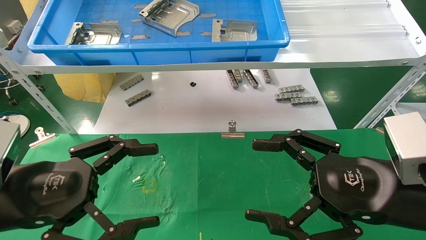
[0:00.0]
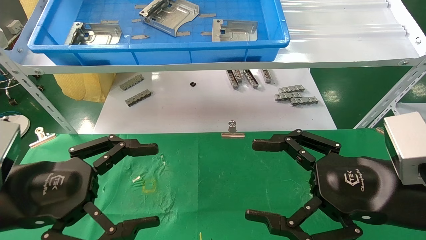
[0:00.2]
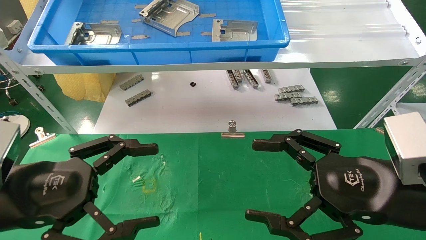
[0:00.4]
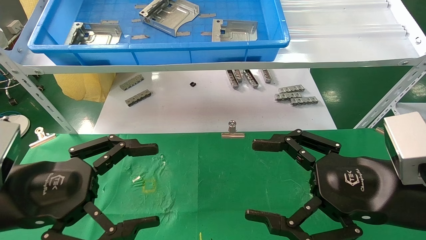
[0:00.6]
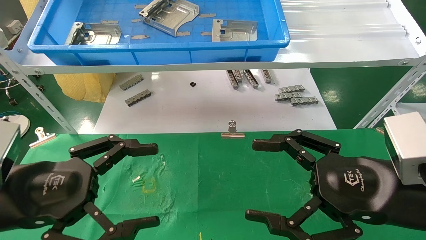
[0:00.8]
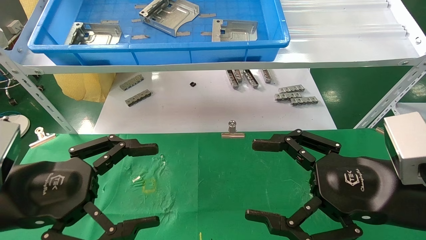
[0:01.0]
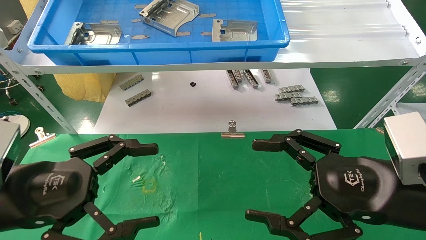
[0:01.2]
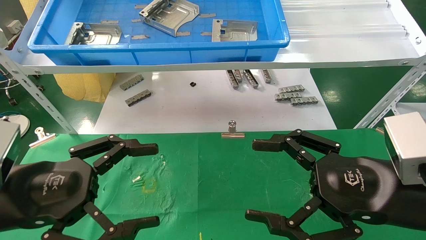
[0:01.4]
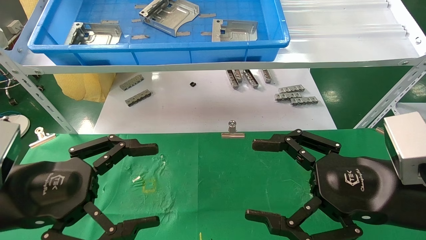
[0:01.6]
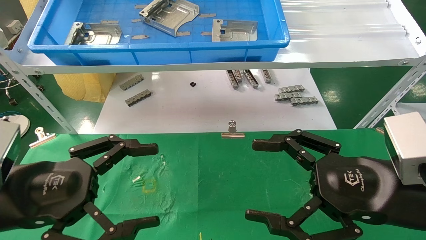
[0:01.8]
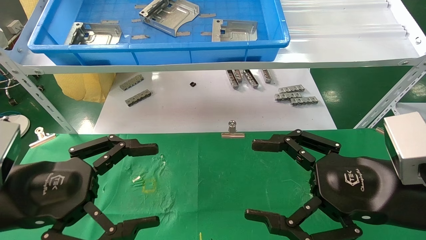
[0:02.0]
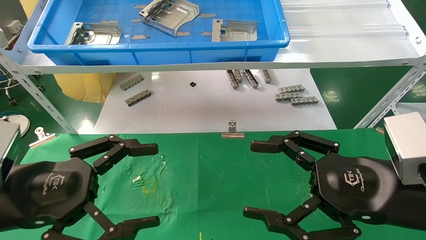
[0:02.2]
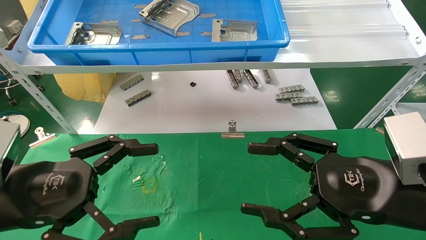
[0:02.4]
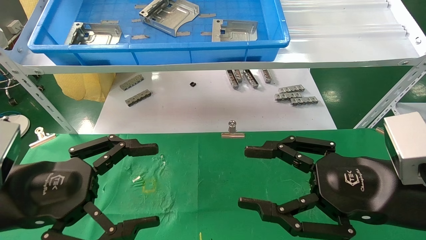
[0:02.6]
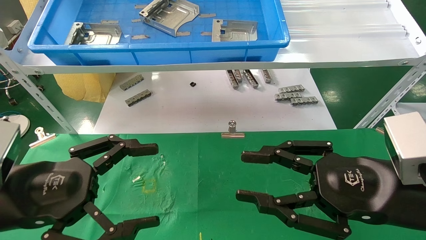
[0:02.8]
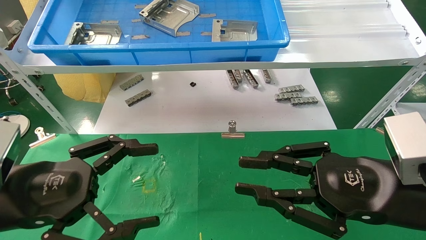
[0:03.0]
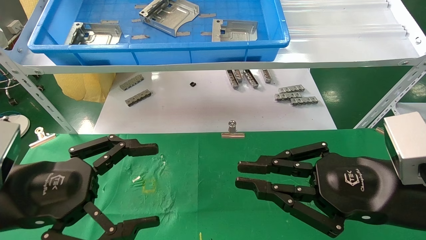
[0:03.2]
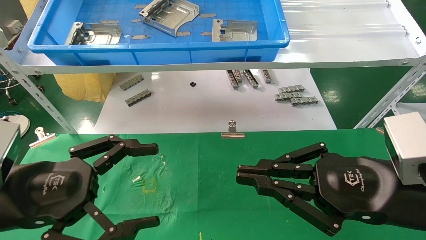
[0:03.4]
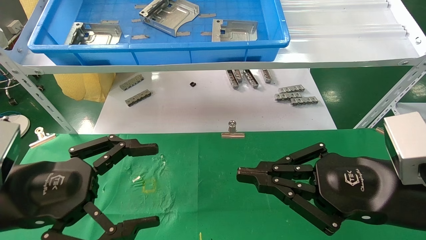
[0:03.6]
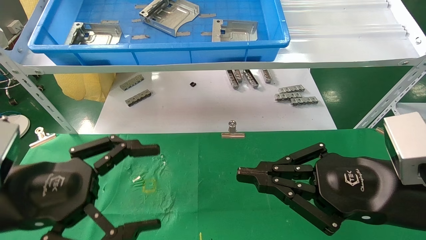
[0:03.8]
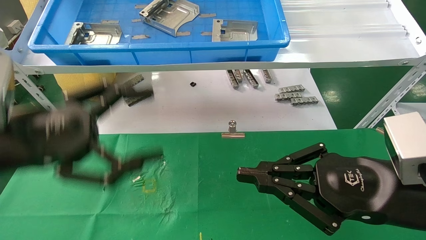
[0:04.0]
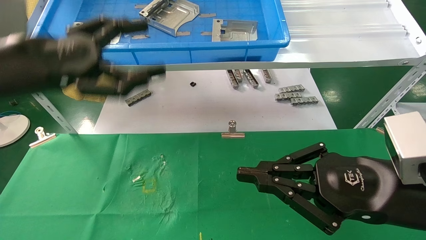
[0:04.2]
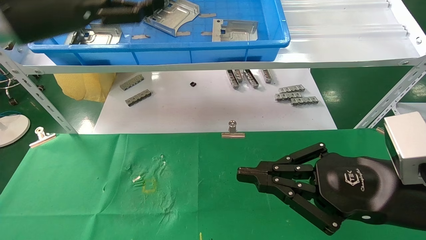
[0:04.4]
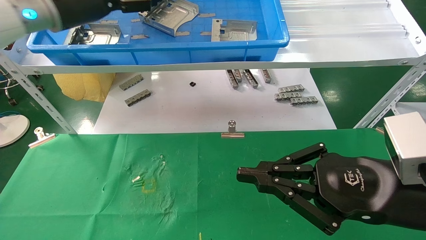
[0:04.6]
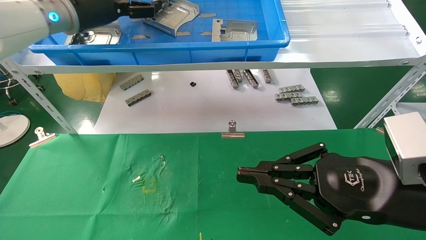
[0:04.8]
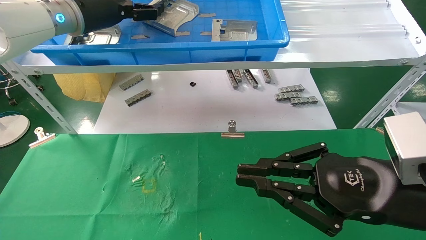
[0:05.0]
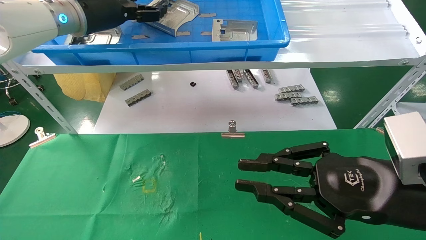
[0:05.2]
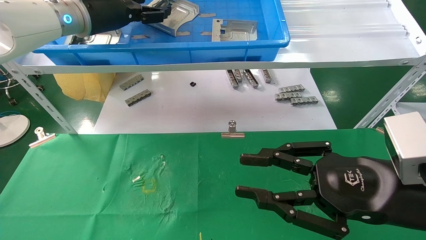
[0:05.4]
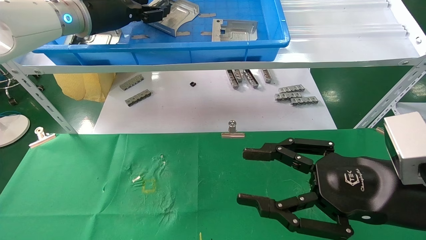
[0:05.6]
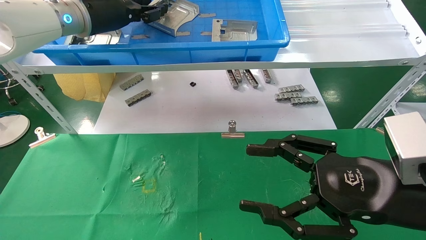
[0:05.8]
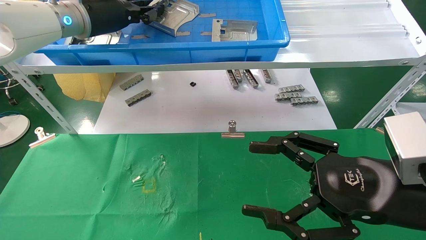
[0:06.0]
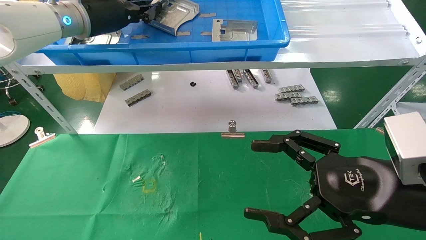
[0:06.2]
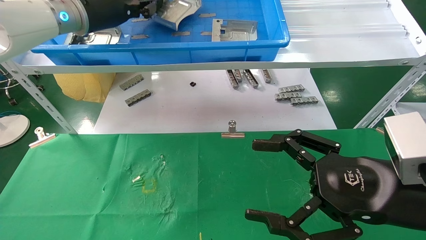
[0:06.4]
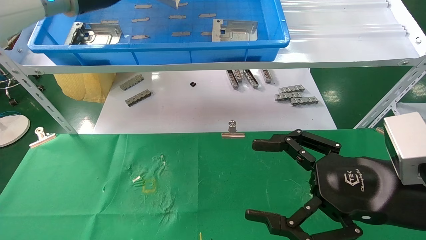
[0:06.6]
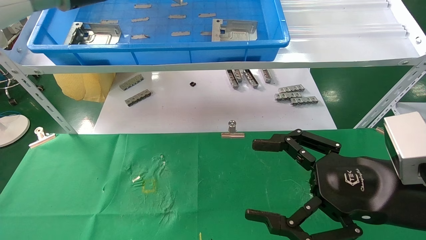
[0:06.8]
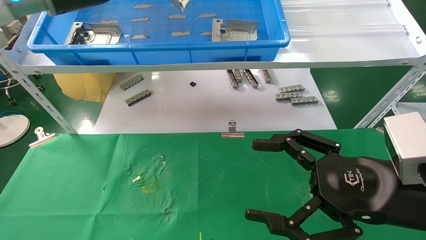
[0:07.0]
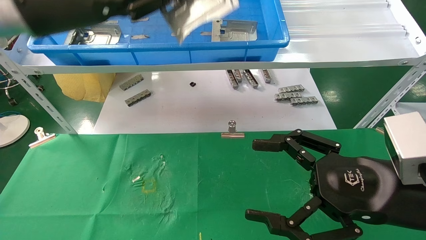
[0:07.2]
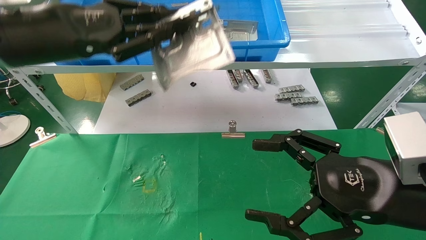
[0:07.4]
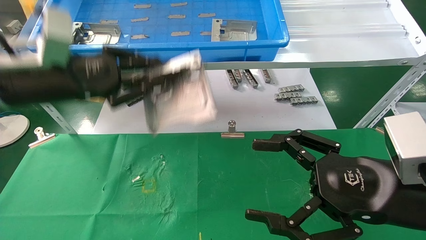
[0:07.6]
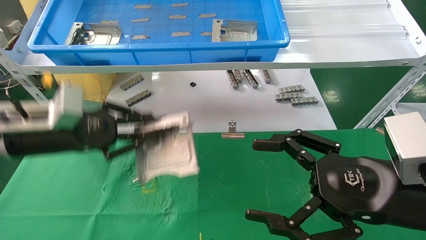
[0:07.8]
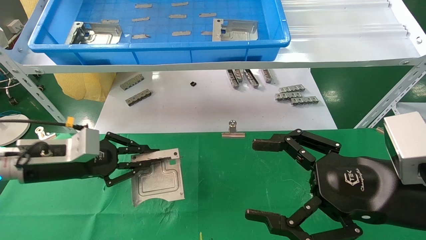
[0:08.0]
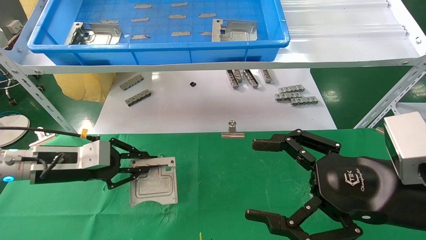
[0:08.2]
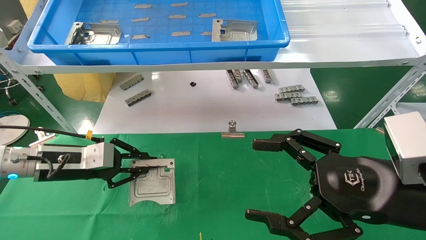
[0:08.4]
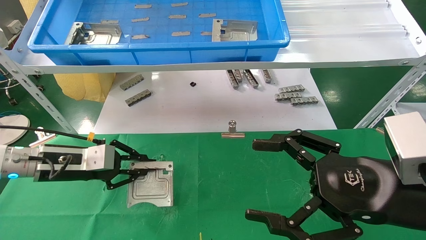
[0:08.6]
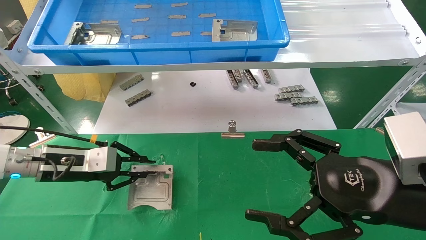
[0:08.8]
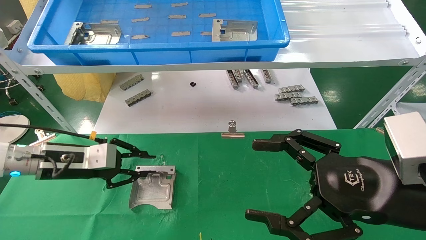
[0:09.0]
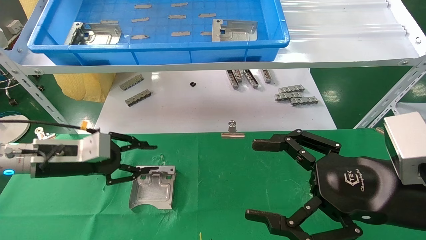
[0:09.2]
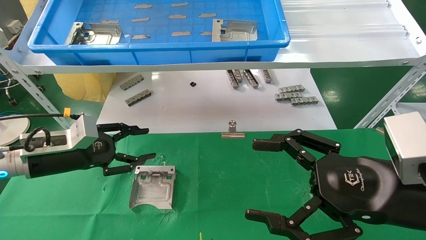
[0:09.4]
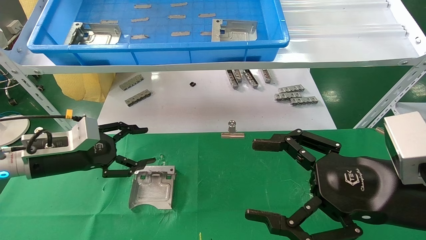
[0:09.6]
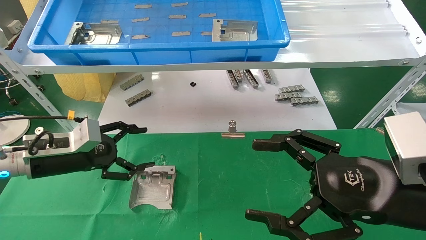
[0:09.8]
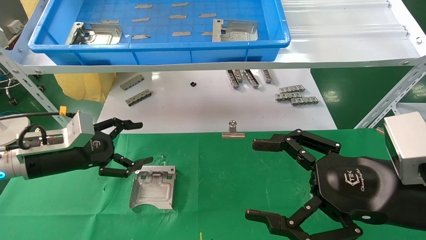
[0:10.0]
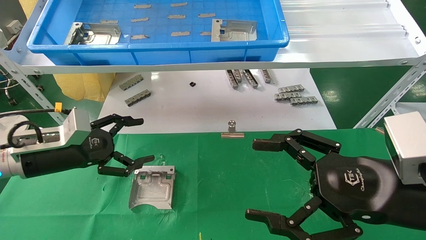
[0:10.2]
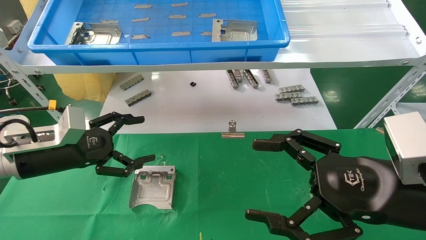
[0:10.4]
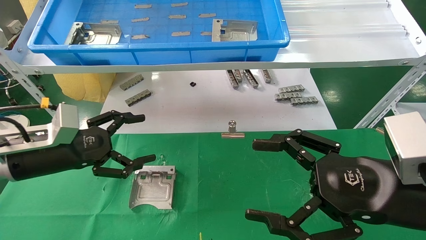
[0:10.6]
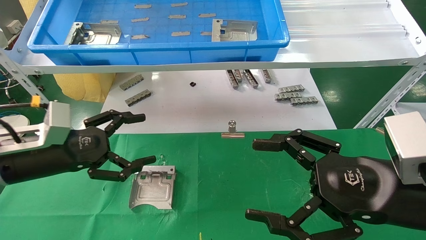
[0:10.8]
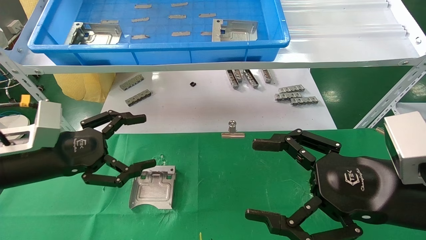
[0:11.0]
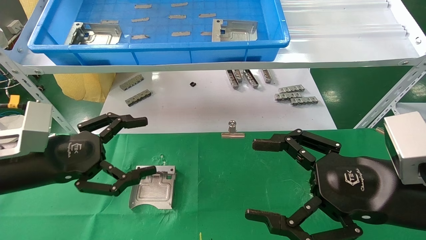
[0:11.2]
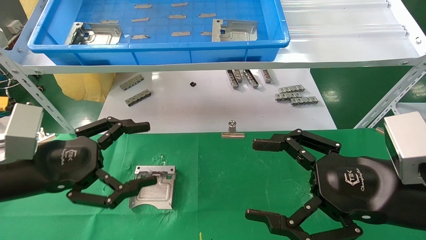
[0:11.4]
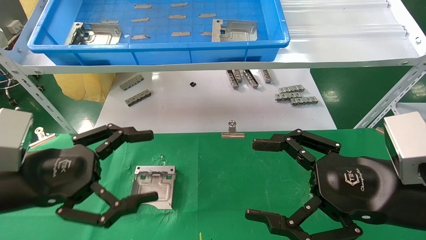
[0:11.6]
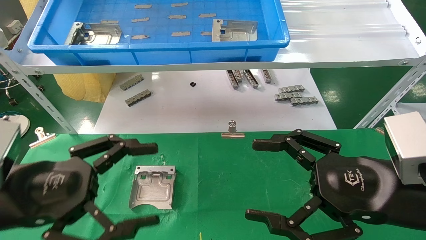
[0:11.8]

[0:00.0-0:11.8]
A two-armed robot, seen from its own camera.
Task of the whole recording: use the mechanical arm to pick up the parts and place them on the table.
Step, 0:04.2 to 0:06.2: Pick up the hard drive bracket from the feeding area.
Step, 0:06.4 to 0:08.8: Place the hard drive bracket into the box.
0:00.0 to 0:01.4: Both grippers stay put.
0:01.4 to 0:03.0: The right gripper closes.
0:03.0 to 0:04.4: The right gripper closes up; the left gripper is displaced upward and forward by about 25 cm.
0:04.4 to 0:06.0: The left gripper travels forward by some 10 cm, and closes. Meanwhile the right gripper opens its fingers.
0:06.0 to 0:07.4: The left gripper goes about 15 cm backward and downward.
0:07.4 to 0:08.8: The left gripper is displaced downward by approximately 20 cm.
0:08.8 to 0:10.4: The left gripper opens up.
0:10.4 to 0:11.8: The left gripper heads backward, covering approximately 15 cm.
